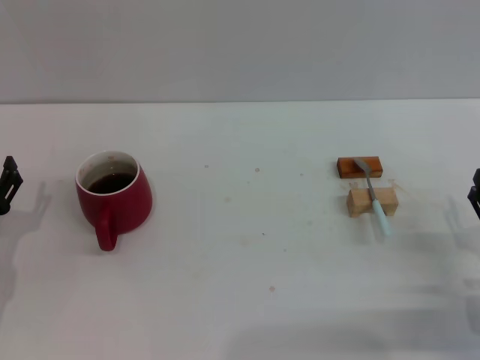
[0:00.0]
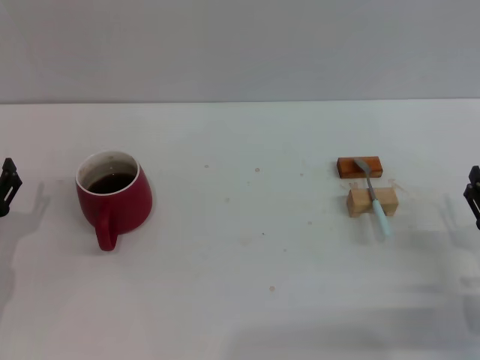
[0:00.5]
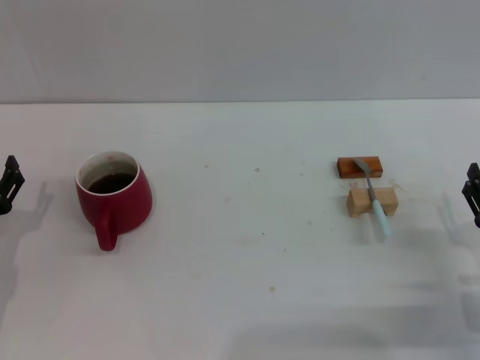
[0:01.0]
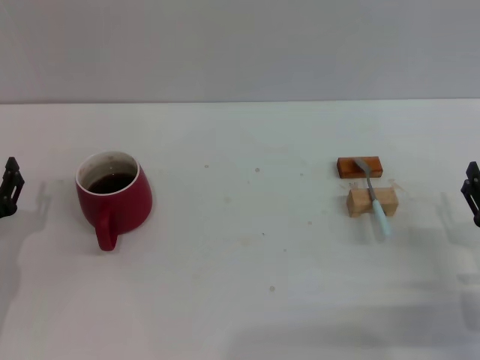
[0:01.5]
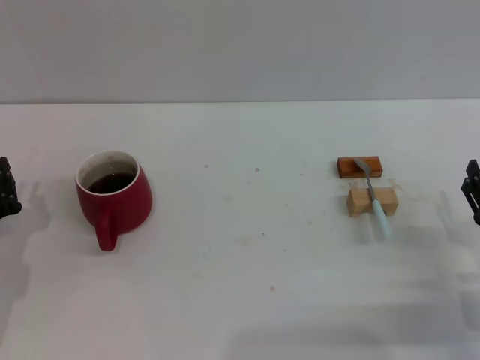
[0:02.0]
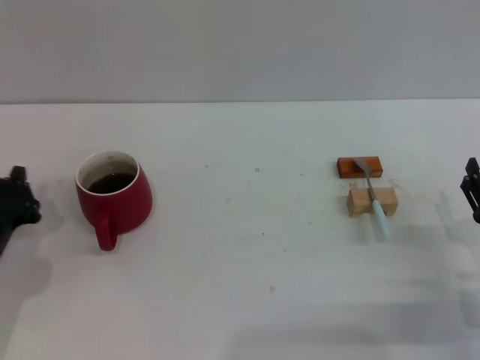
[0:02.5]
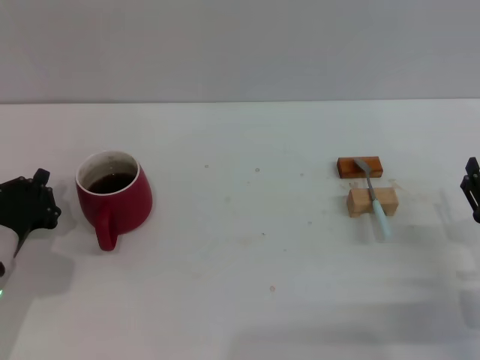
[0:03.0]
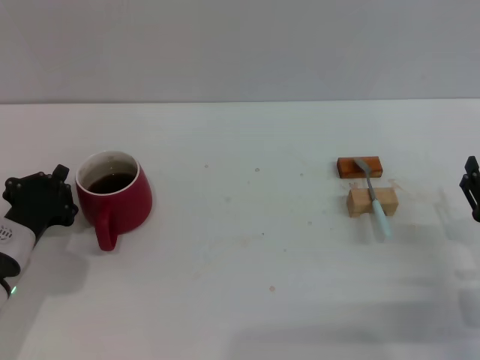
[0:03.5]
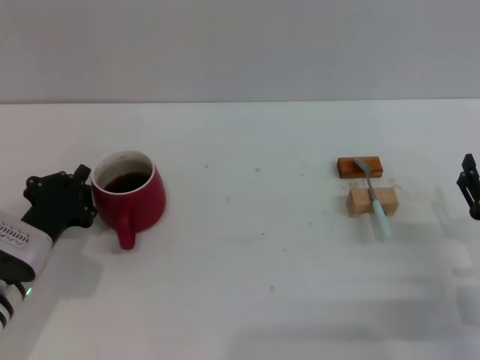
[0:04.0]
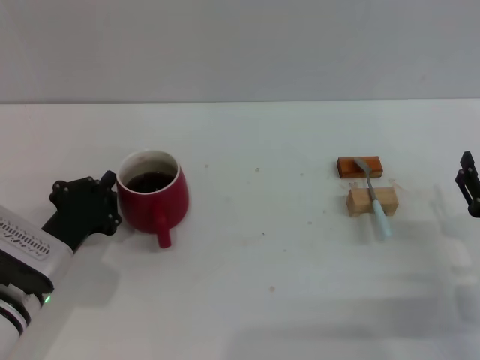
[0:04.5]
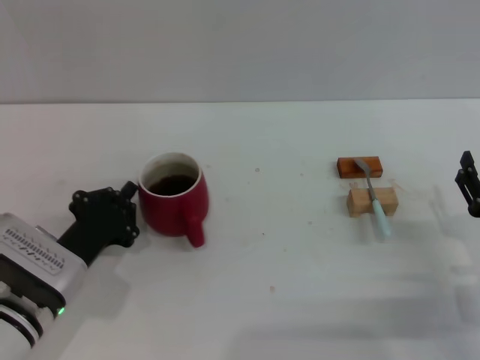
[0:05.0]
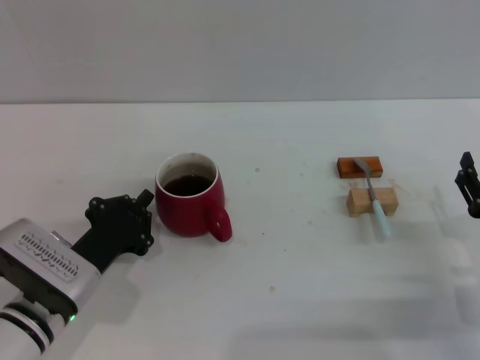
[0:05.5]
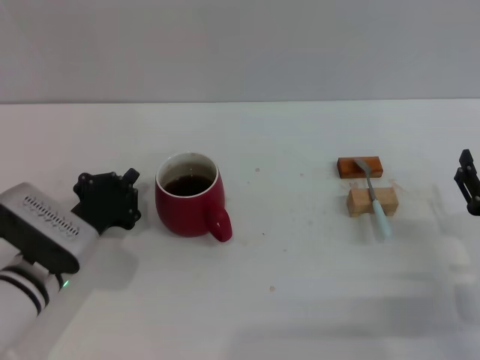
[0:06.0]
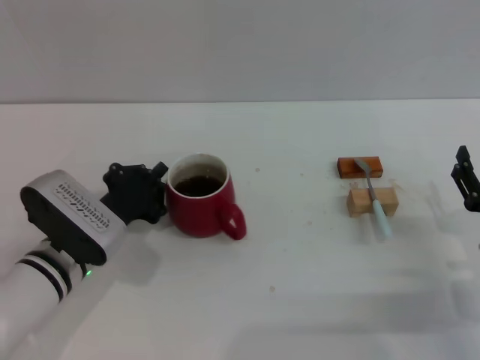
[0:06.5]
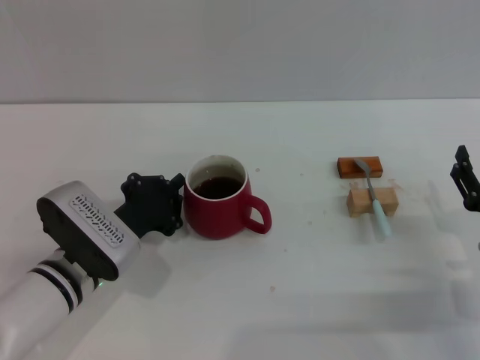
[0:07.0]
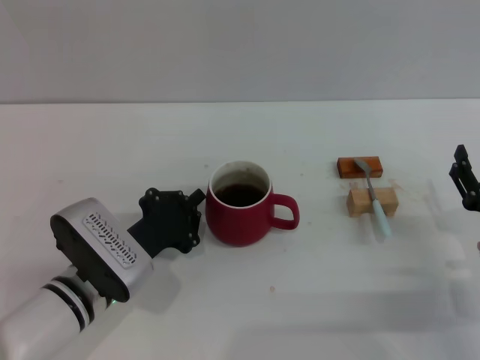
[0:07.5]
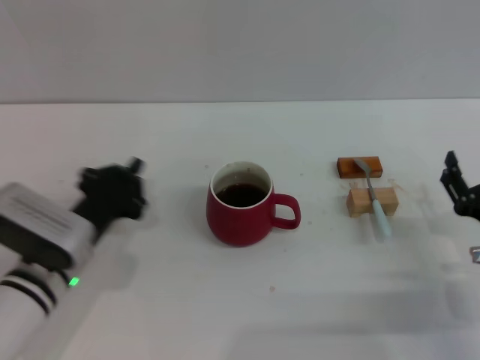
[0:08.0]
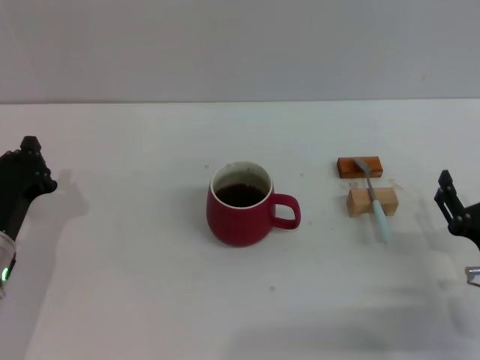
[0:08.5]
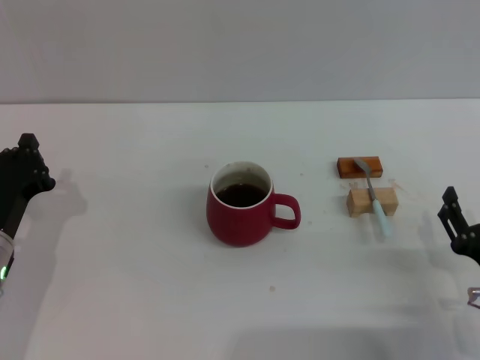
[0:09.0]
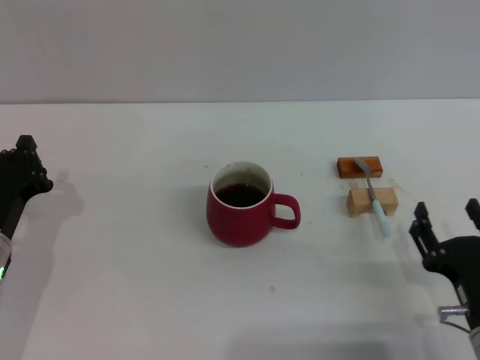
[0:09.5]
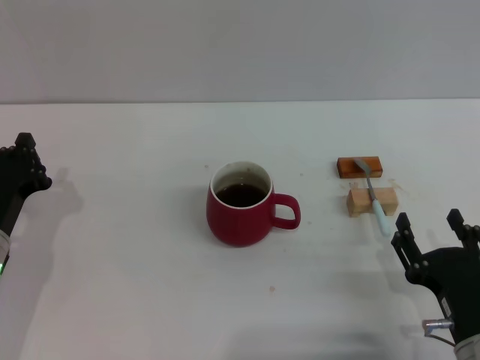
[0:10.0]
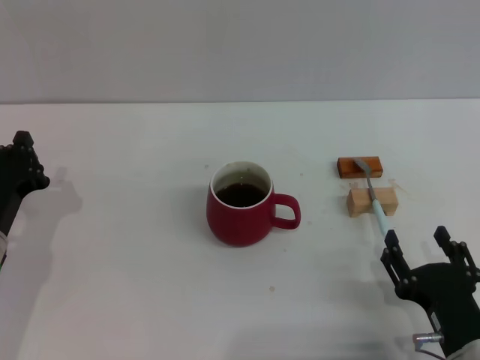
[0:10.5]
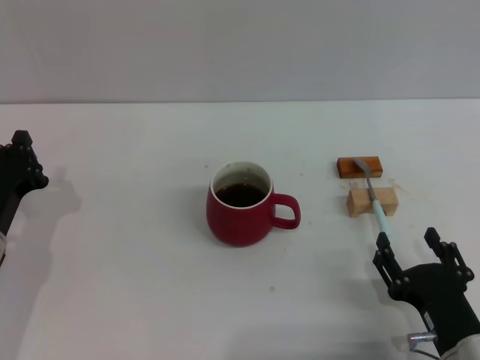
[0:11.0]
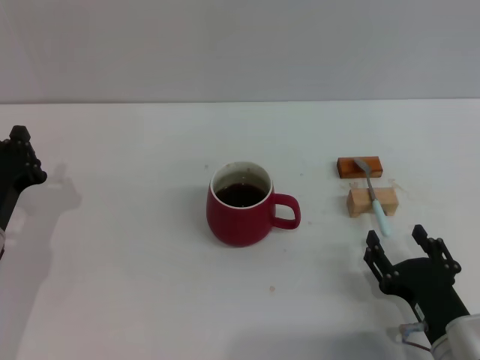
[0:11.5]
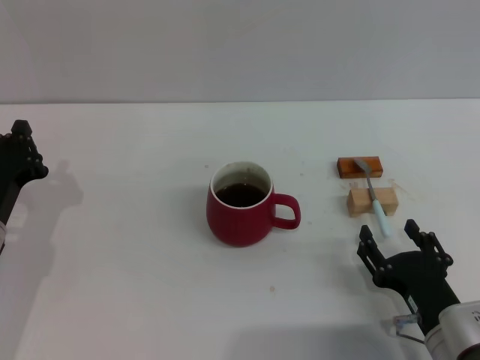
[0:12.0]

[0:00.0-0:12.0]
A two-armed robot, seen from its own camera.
Task of the whole recording: Move the red cup to the center, lift the blue spoon, stir it three times in the cup, and put the spoon into the cup.
Step, 0:00.0 to 0:07.5: Move the cup with coffee to the center of view with the left gripper.
0:02.0 to 0:04.0: The left gripper moves approximately 5 cm.
0:04.0 to 0:06.0: The grippers stay close to where they were, moving slightly.
0:06.0 to 0:08.0: The grippers move only a little.
0:08.0 to 0:10.0: The left gripper moves to the left, about 5 cm. The right gripper moves backward and to the left, some 10 cm.
0:10.0 to 0:12.0: There are only small adjustments of the grippers.

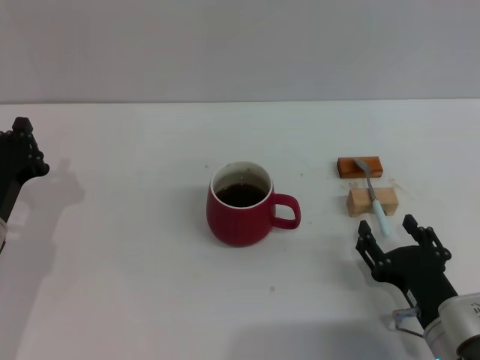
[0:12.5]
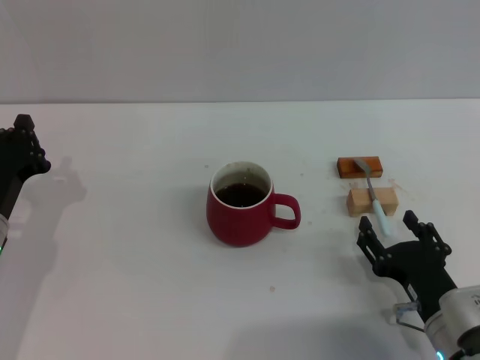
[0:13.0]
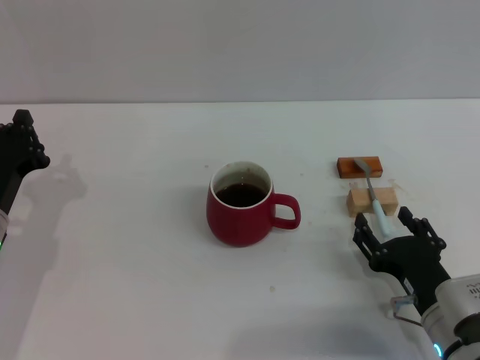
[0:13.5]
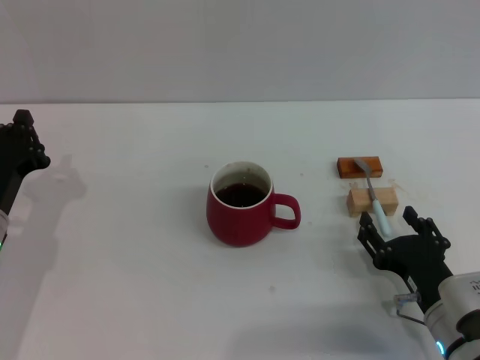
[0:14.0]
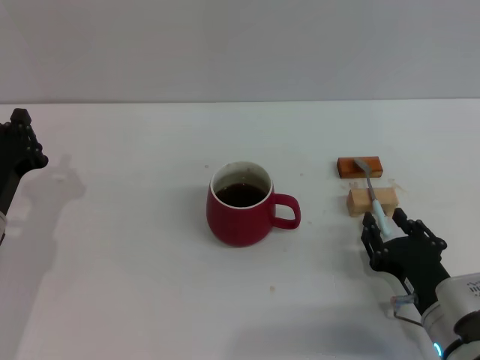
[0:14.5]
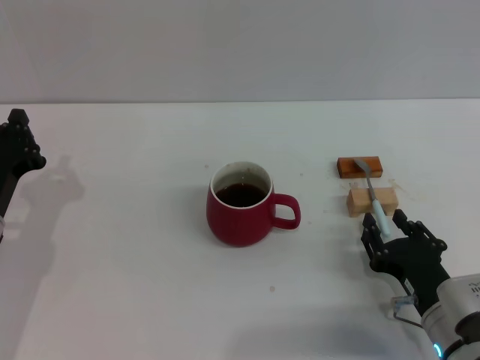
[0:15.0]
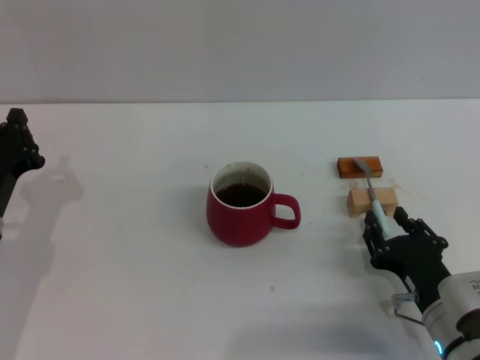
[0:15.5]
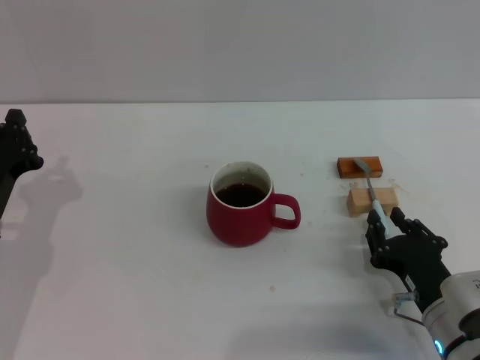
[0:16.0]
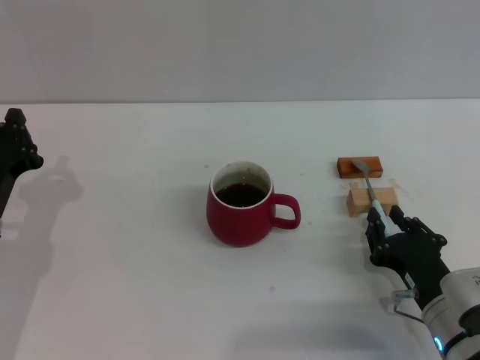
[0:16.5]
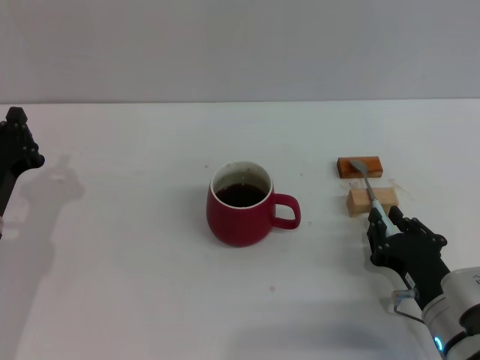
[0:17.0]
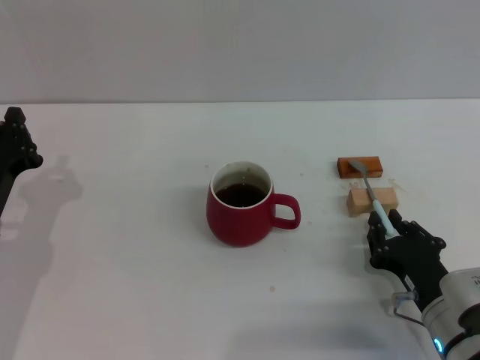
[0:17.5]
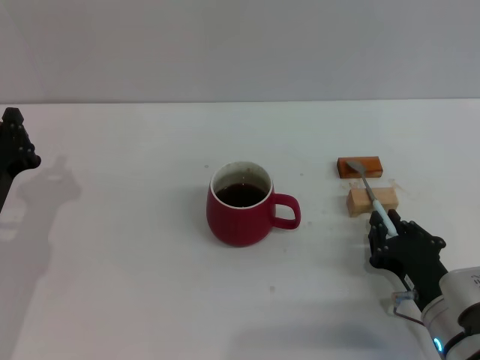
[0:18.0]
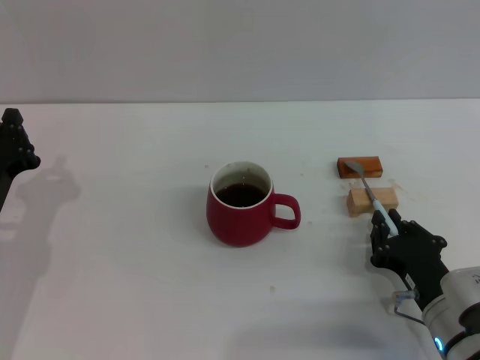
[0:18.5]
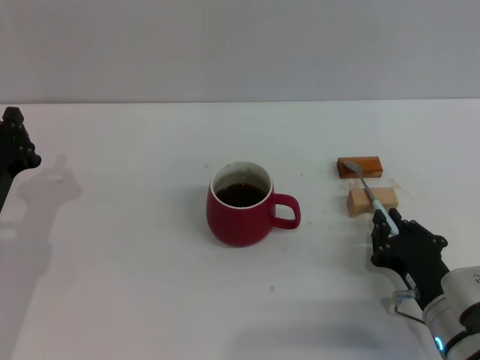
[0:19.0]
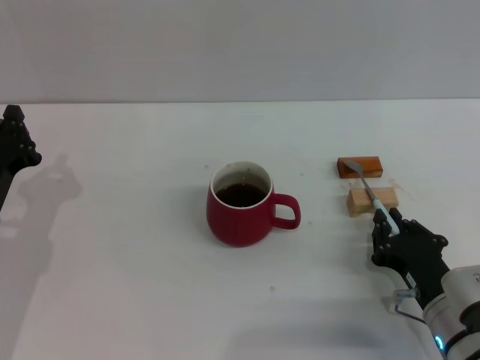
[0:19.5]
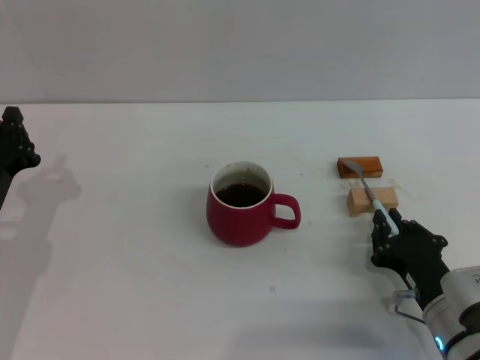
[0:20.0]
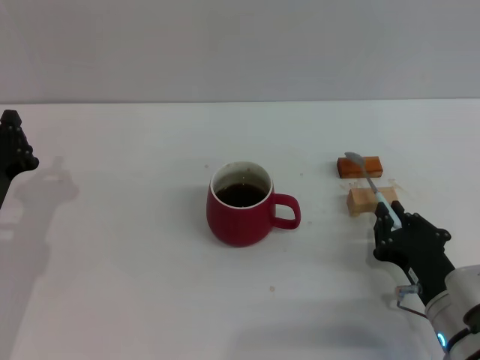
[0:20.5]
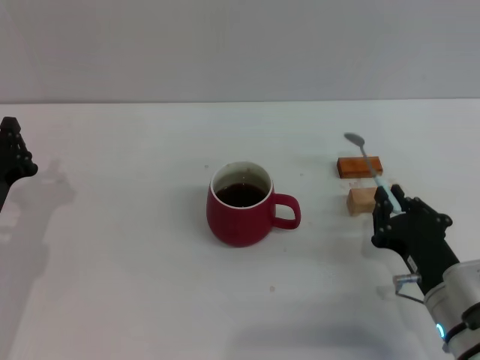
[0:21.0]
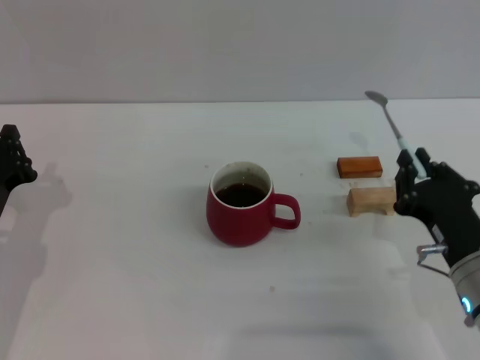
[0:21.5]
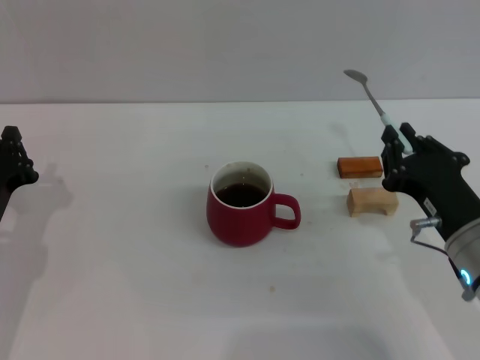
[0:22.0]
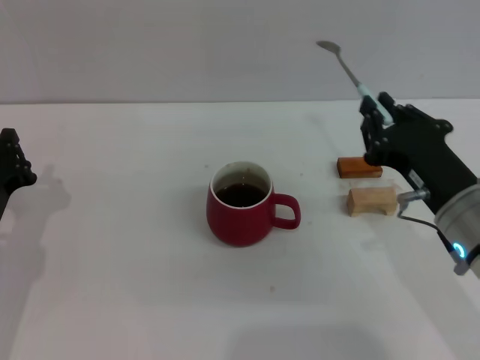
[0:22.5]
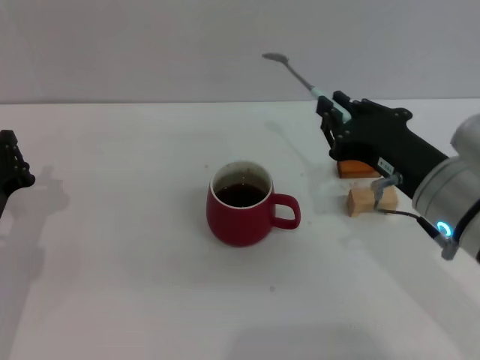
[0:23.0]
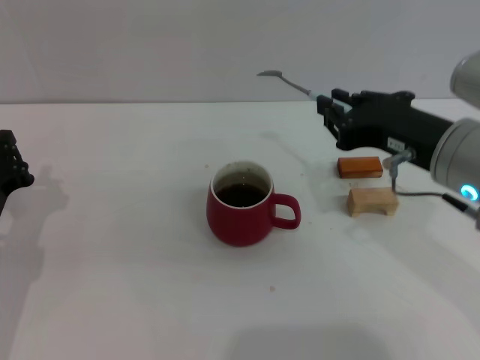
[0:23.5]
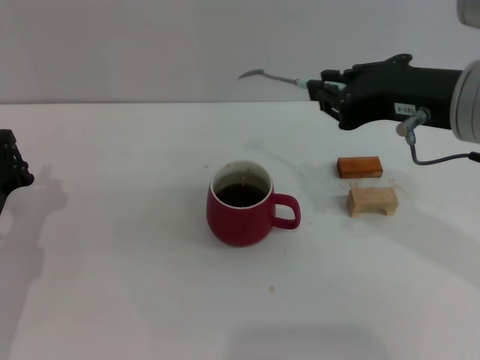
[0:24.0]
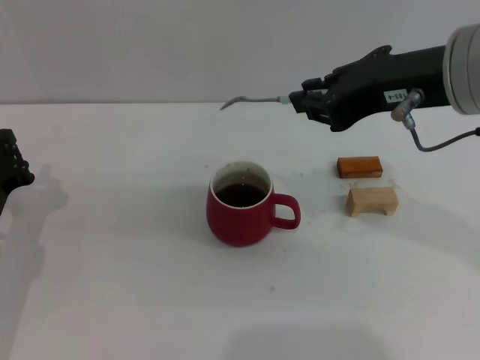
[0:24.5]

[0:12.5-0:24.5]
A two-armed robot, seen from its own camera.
Task of the whole recording: Move the red cup to the center, lift the blue spoon, stir it three times in the cup, and put the spoon into the cup.
Step, 0:12.5 to 0:20.5: Pick up the spoon with the right gripper.
0:12.5 to 0:14.5: The grippers move only a little.
0:14.5 to 0:16.5: The right gripper closes.
0:16.5 to 0:20.5: Neither gripper changes place.
0:20.5 to 0:22.5: The right gripper shifts roughly 10 cm upward.
0:22.5 to 0:24.5: The right gripper travels upward by roughly 15 cm.

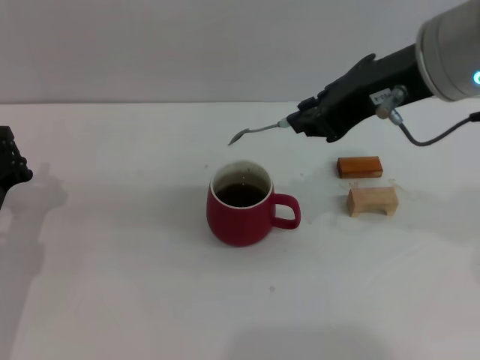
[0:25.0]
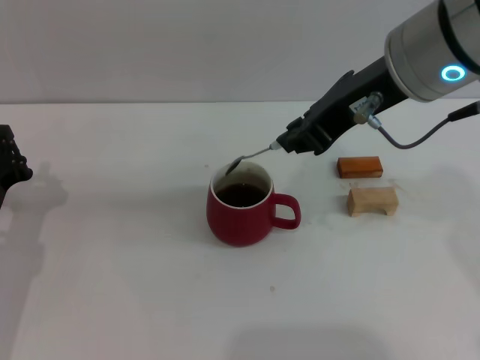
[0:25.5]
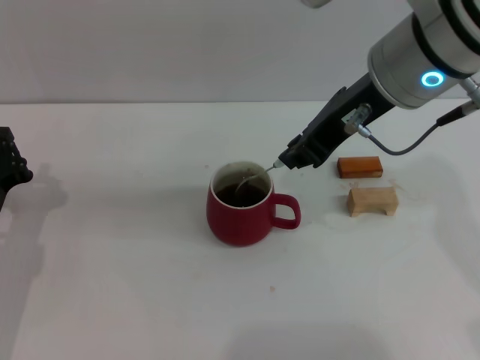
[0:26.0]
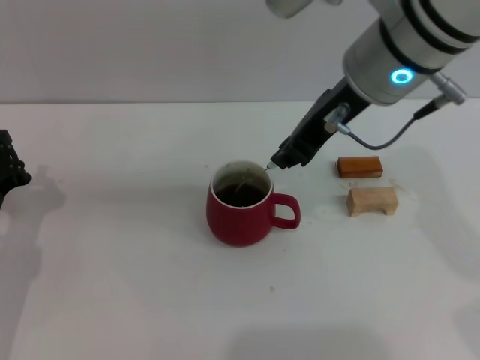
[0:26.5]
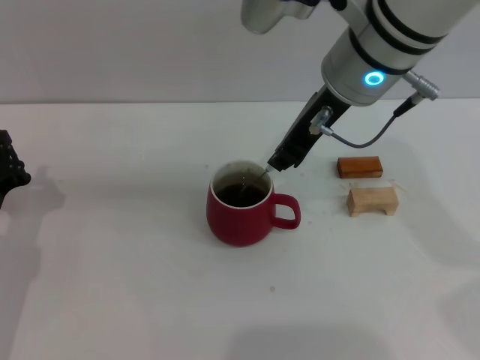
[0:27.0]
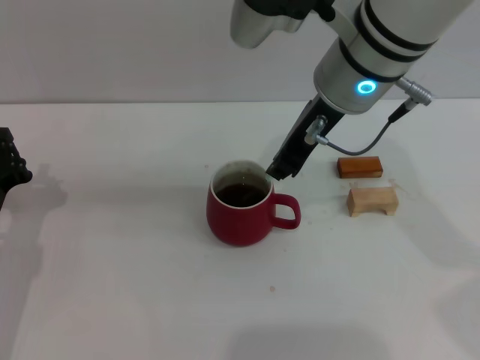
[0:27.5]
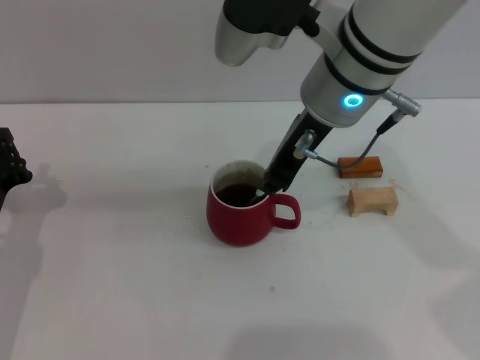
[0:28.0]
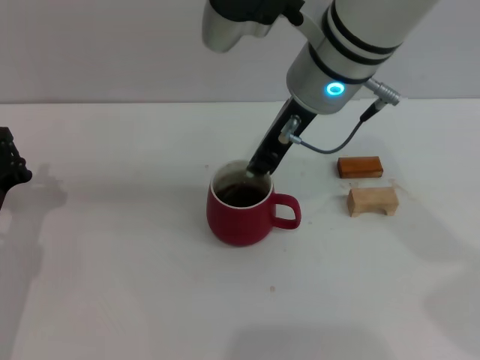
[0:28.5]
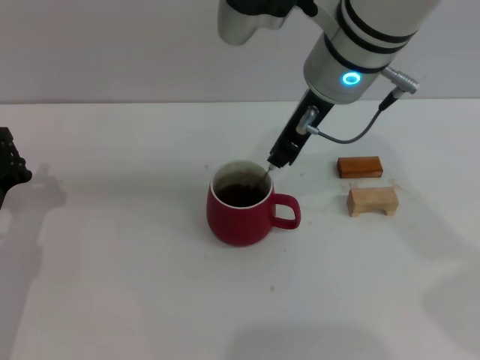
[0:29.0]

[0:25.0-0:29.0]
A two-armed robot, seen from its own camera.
Task of the whole recording: Move the red cup to the center, lift the blue spoon, stir it three times in the cup, and put the spoon into the cup.
0:25.0 to 0:27.0: The right gripper travels forward and to the left by about 10 cm.
0:27.0 to 0:29.0: There are only small adjustments of the grippers.
